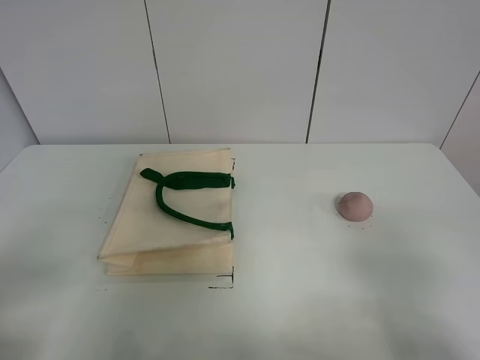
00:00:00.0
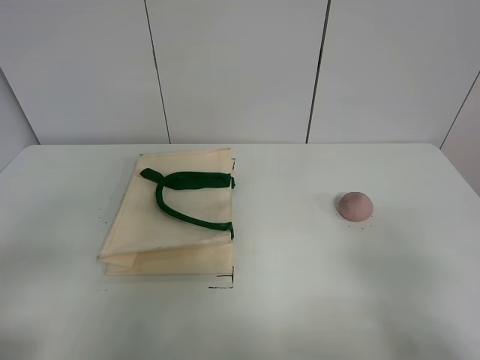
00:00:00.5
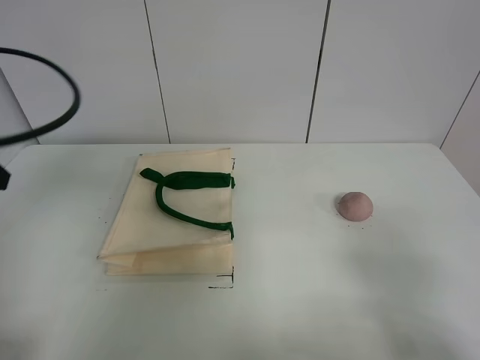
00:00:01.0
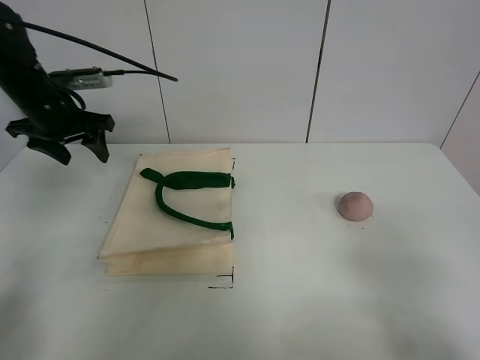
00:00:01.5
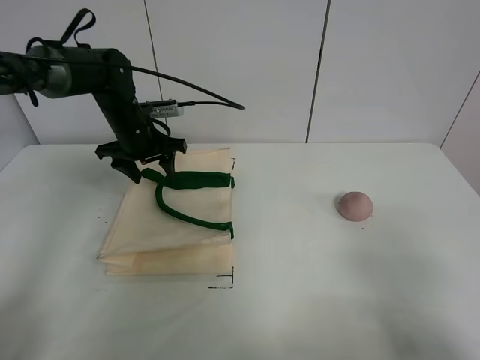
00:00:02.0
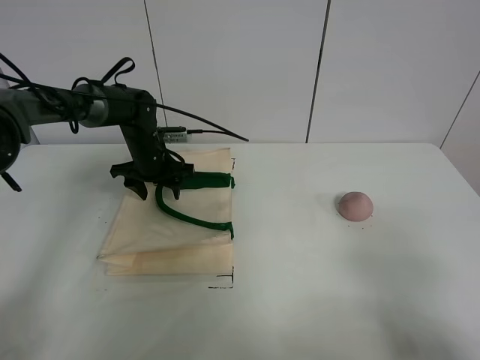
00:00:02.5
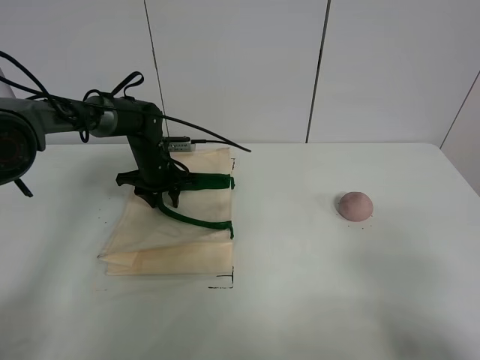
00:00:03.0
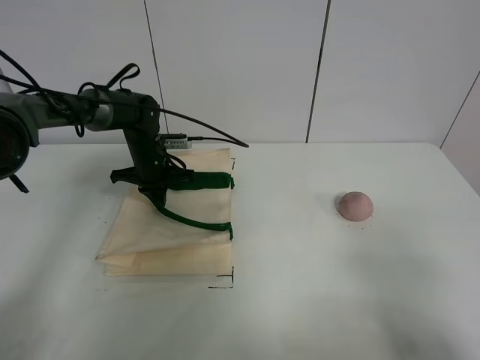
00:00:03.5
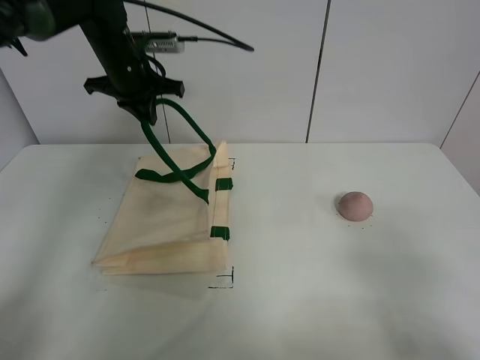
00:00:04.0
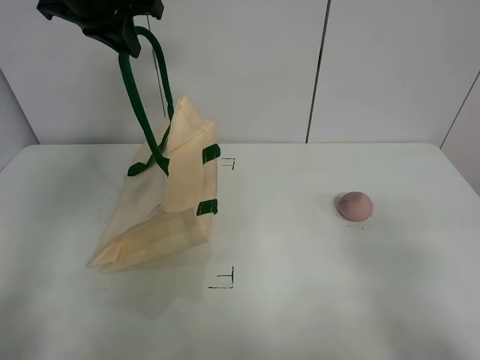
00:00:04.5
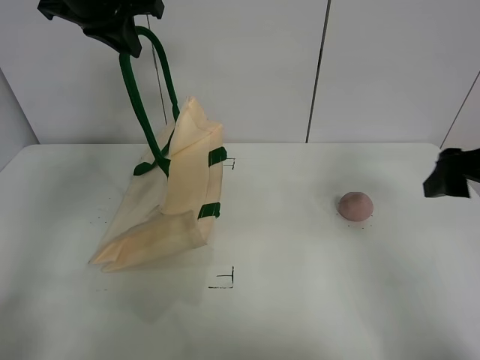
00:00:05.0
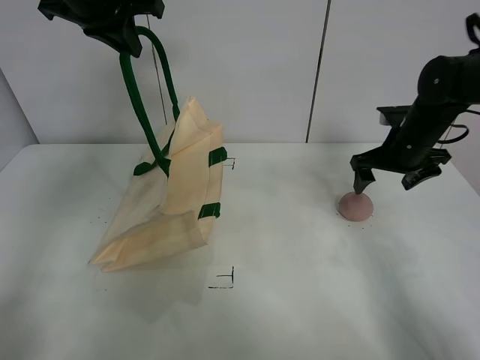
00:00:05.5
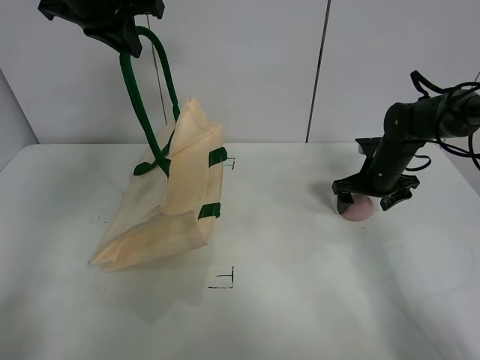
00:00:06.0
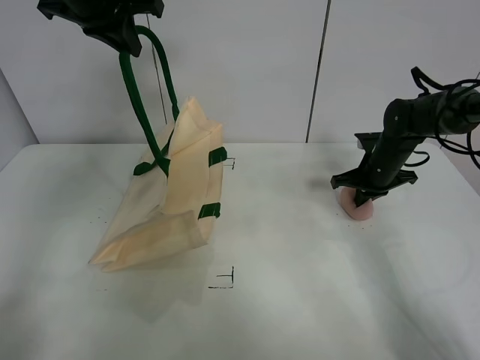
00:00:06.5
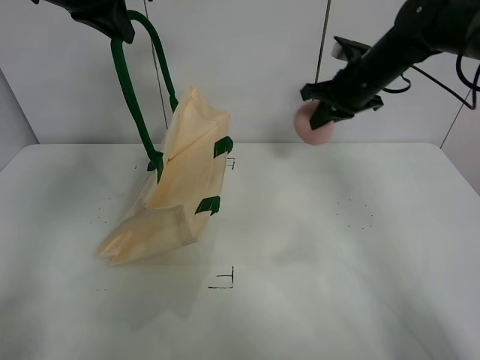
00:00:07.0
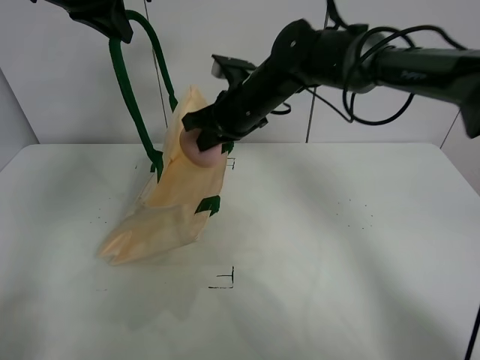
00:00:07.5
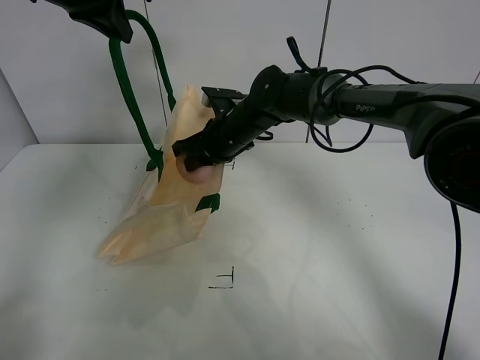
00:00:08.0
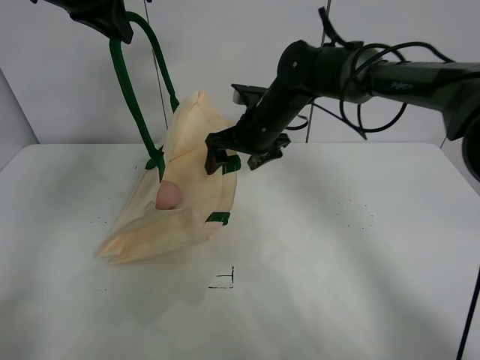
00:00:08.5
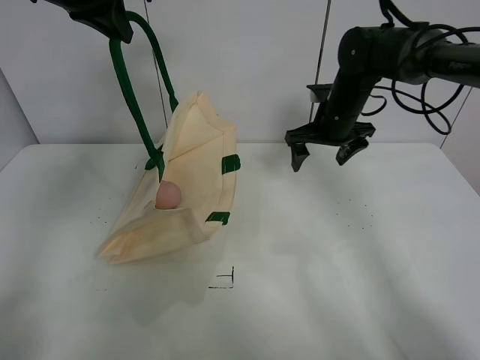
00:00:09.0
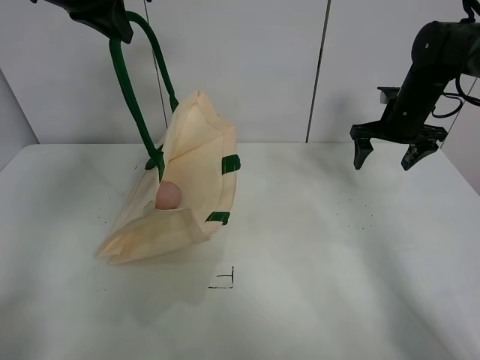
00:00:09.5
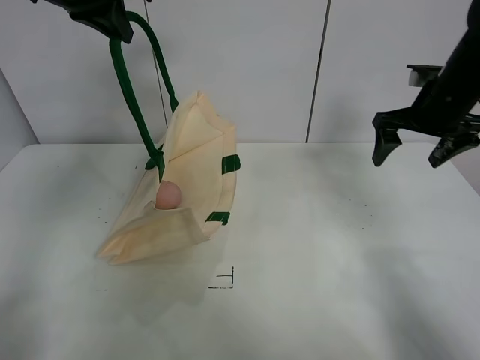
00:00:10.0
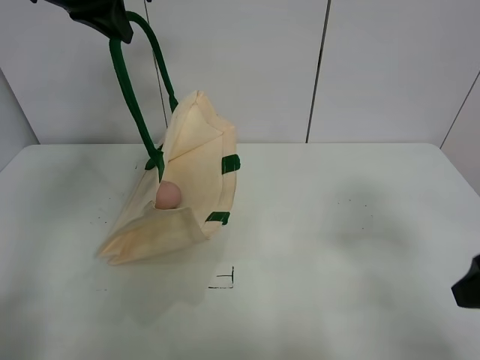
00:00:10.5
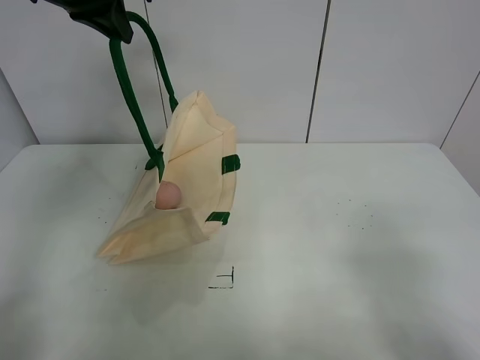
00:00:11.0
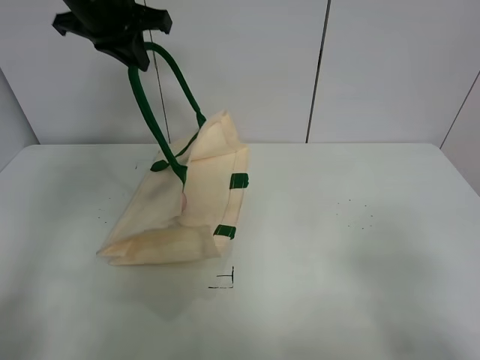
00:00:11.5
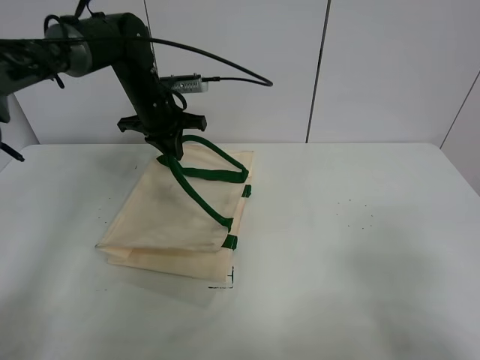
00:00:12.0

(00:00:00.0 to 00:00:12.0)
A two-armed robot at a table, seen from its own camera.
Task of the whole recording: open the white linen bag and put the peach in the bag.
Step, 00:00:00.0 - 00:00:04.5: Lift the handbag with left gripper.
Step, 00:00:05.0 - 00:00:06.5: Grasp the peach with right gripper.
Step, 00:00:07.0 - 00:00:08.0: Place the peach in the handbag with right gripper.
00:00:00.0 - 00:00:02.0: The left gripper is displaced forward by approximately 40 cm.
00:00:02.0 - 00:00:04.0: The left gripper is displaced upward by about 10 cm, and closes its fingers.
00:00:04.0 - 00:00:06.0: The right gripper heads forward, covering approximately 40 cm. Meanwhile the left gripper moves upward and backward, some 15 cm.
00:00:06.0 - 00:00:08.0: The right gripper travels to the left by roughly 25 cm, and closes.
00:00:08.0 - 00:00:10.0: The right gripper is displaced to the right by approximately 30 cm, and opens its fingers.
00:00:10.0 - 00:00:12.0: The right gripper shifts roughly 35 cm backward, while the left gripper heads downward, covering roughly 20 cm.

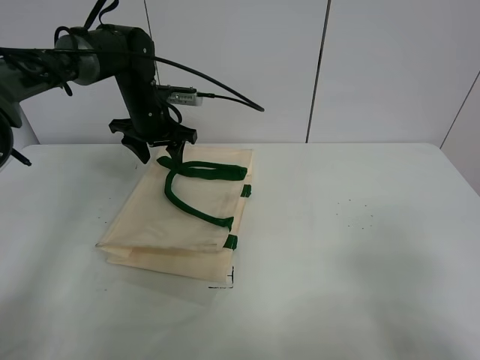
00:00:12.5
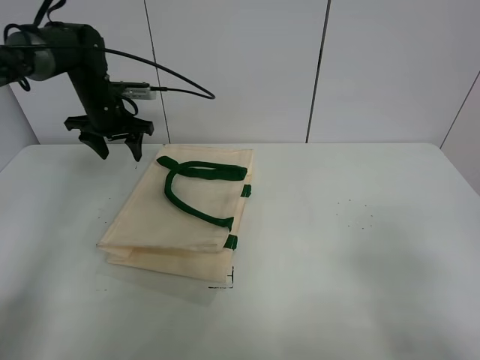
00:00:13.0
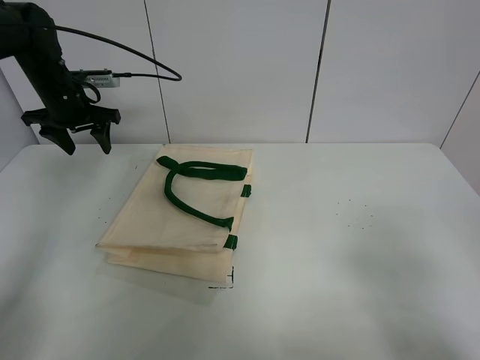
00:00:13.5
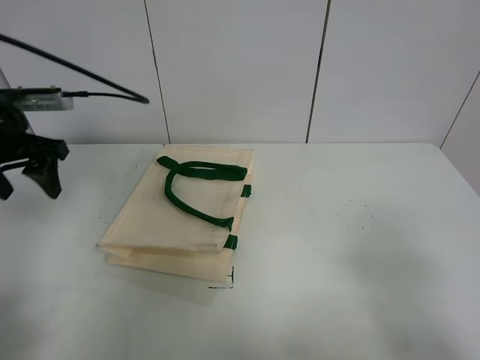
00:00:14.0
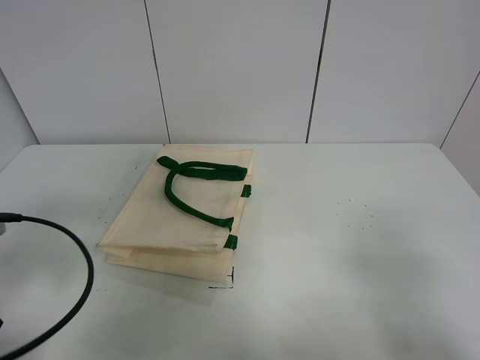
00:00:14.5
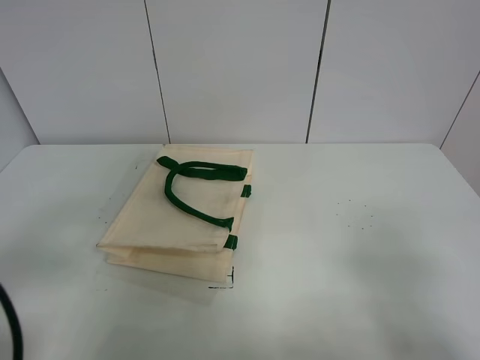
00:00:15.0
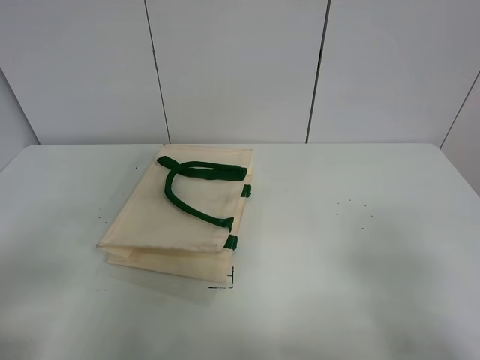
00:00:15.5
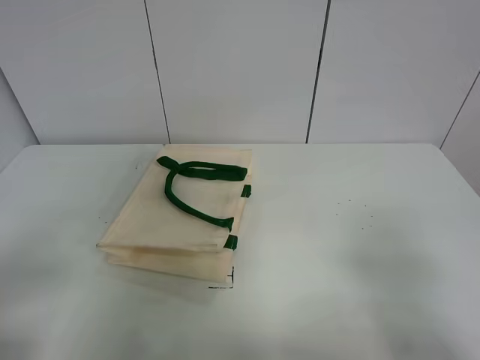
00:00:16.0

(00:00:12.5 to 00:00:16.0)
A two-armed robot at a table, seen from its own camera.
Task of the whole recording: open the white linen bag and put the peach in the bag.
00:00:12.5 - 00:00:14.5: The left gripper travels backward and to the left by roughly 40 cm.
00:00:14.5 - 00:00:16.0: The left gripper moves backward, approximately 10 cm.

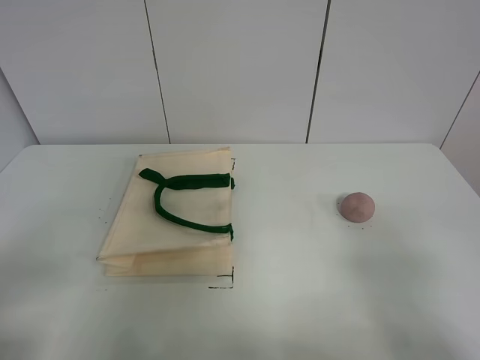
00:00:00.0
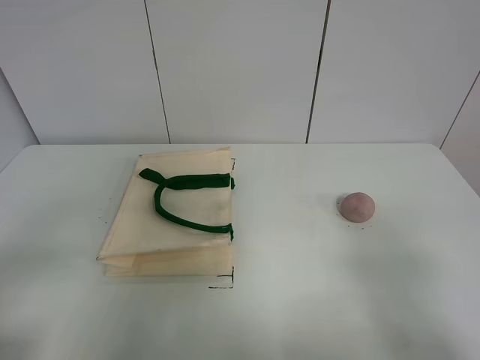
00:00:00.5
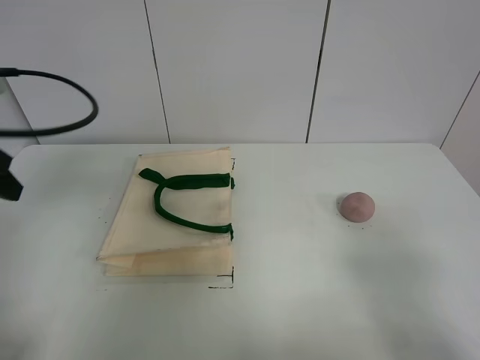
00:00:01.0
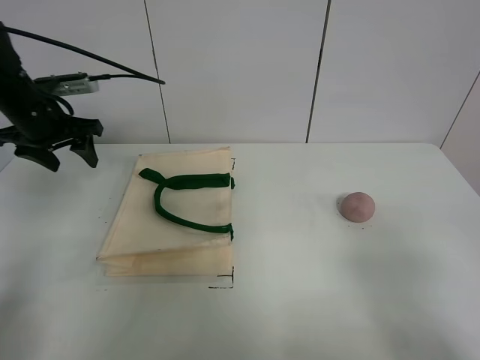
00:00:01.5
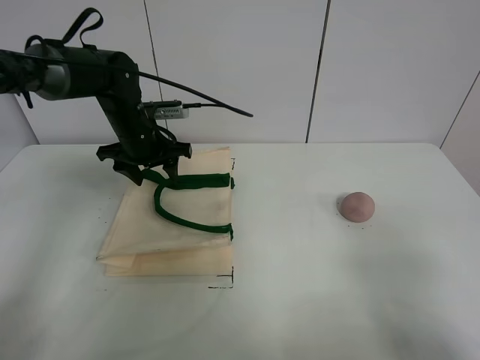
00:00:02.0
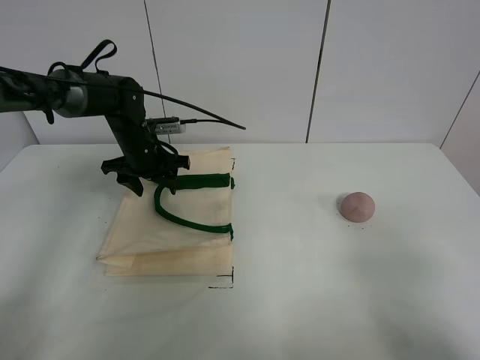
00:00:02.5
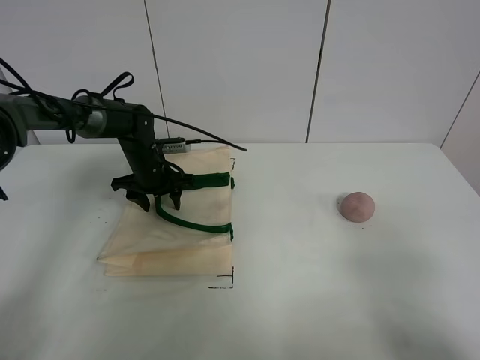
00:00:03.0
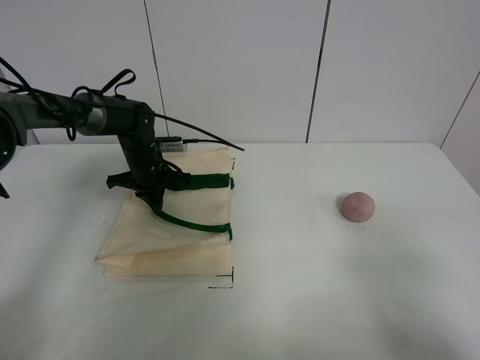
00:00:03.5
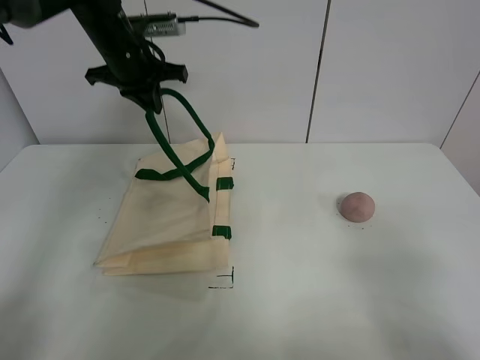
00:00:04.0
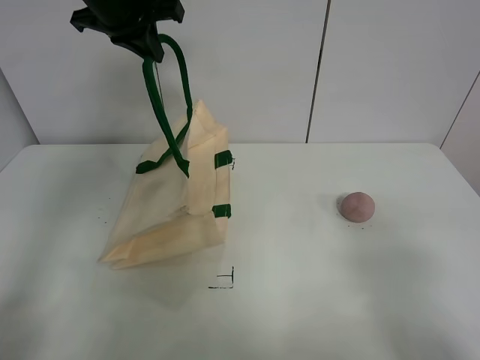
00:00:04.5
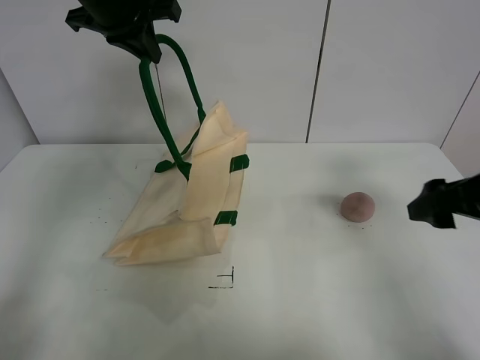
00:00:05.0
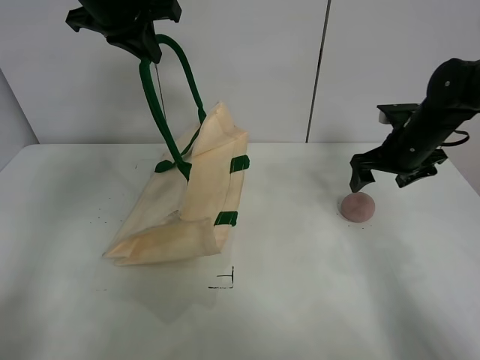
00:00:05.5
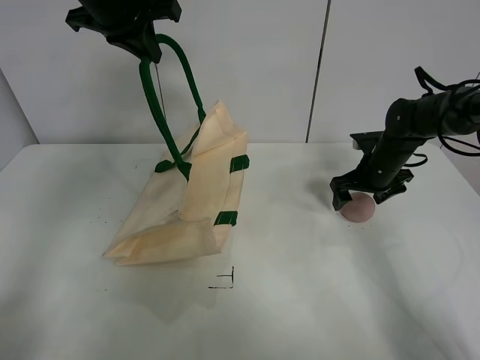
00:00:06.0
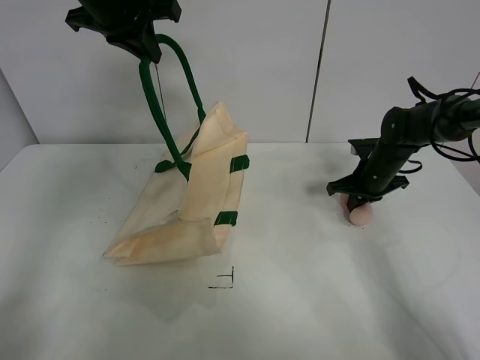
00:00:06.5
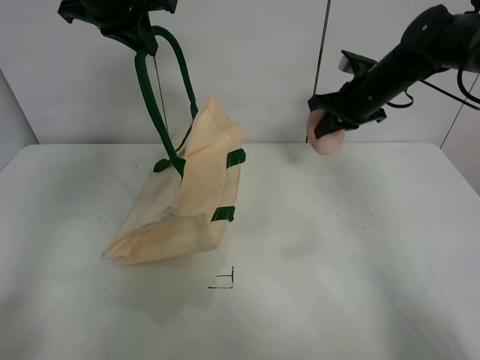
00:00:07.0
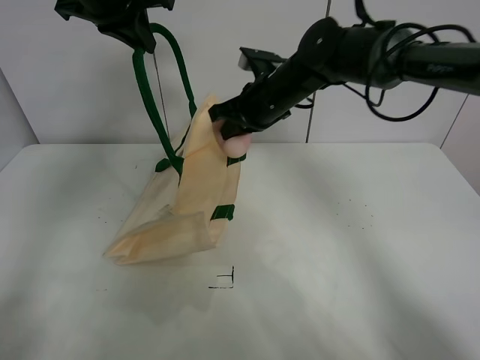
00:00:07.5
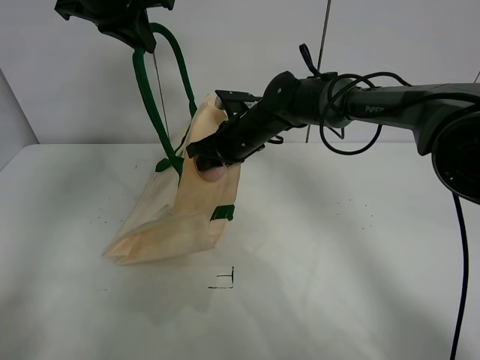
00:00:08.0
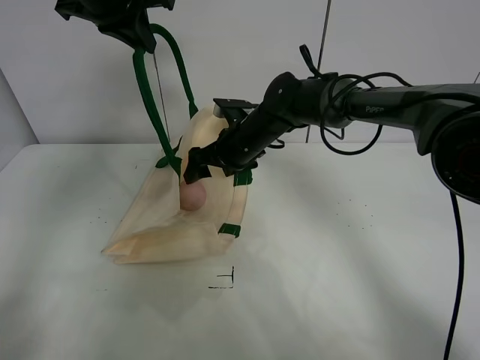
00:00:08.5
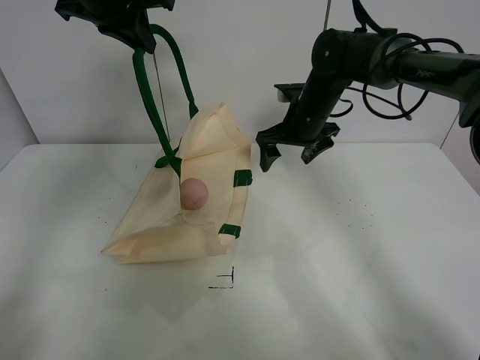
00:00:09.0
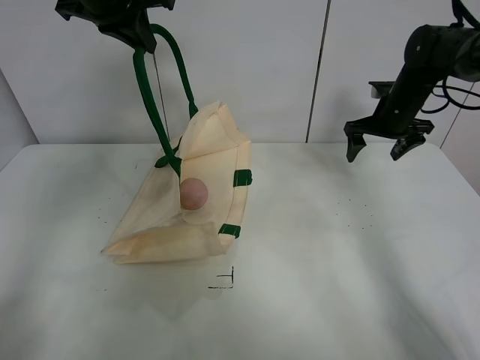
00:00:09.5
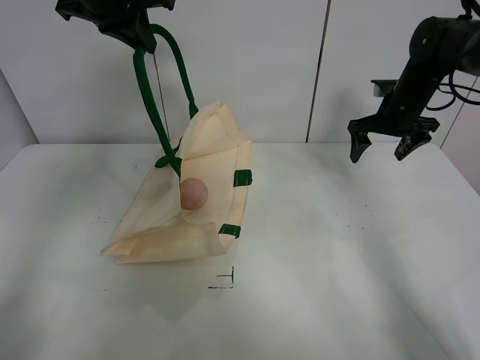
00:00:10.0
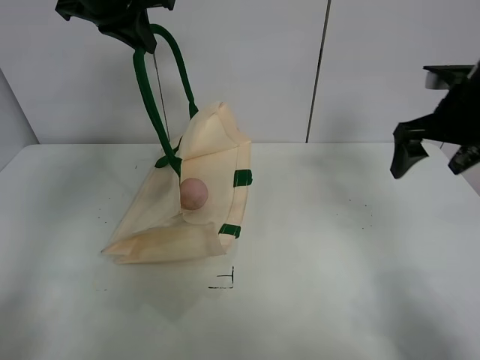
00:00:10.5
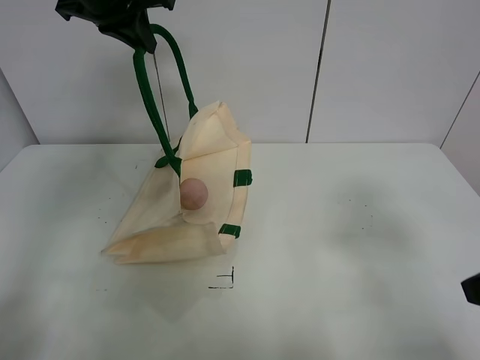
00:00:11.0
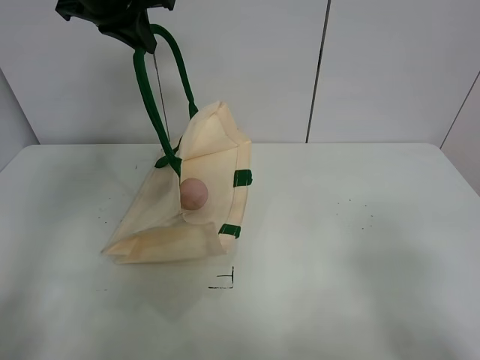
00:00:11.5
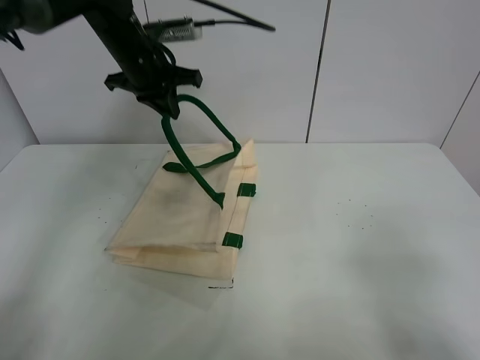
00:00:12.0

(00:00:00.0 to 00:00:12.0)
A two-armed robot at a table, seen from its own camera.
Task of the whole recording: open the white linen bag and put the peach in the bag.
Step, 00:00:00.0 - 00:00:04.0: Lift the handbag with left gripper.
Step, 00:00:04.5 - 00:00:06.5: Grasp the peach with right gripper.
Step, 00:00:07.0 - 00:00:08.5: Place the peach in the handbag with right gripper.
00:00:00.0 - 00:00:02.0: The left gripper moves forward, some 40 cm.
00:00:02.0 - 00:00:04.0: The left gripper is displaced upward by about 15 cm, and closes.
00:00:04.0 - 00:00:06.0: The left gripper is displaced upward by some 5 cm; the right gripper goes about 40 cm forward.
00:00:06.0 - 00:00:08.0: The right gripper moves to the left, approximately 25 cm, and closes.
00:00:08.0 - 00:00:10.0: The right gripper moves to the right, about 25 cm, and opens up.
00:00:10.0 - 00:00:12.0: The left gripper travels downward and forward by some 15 cm. The right gripper is displaced backward by about 50 cm.
